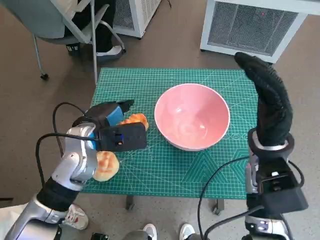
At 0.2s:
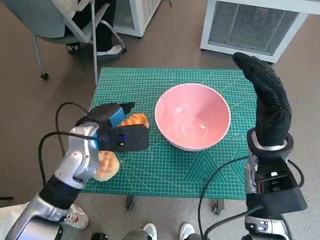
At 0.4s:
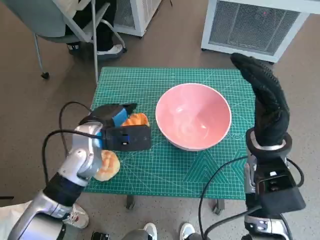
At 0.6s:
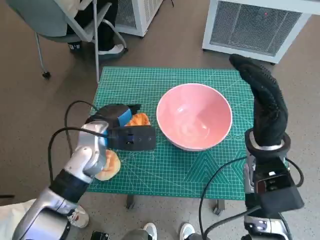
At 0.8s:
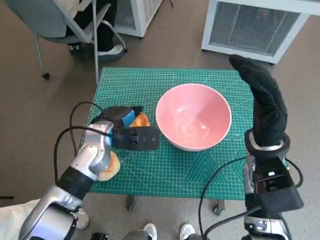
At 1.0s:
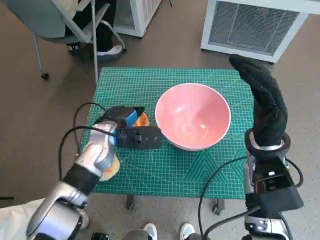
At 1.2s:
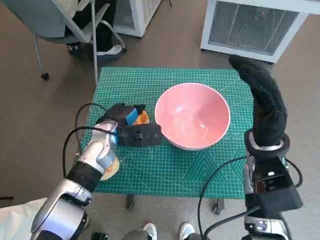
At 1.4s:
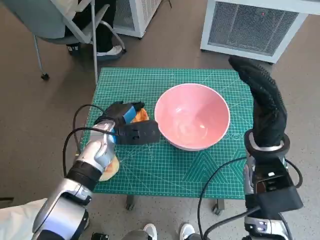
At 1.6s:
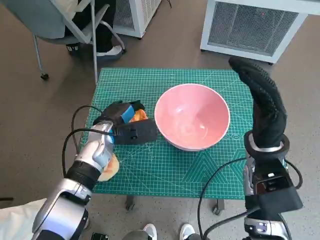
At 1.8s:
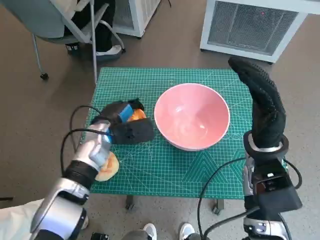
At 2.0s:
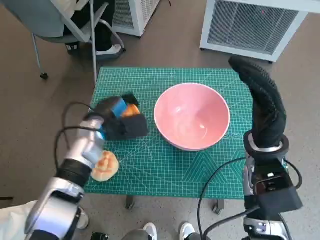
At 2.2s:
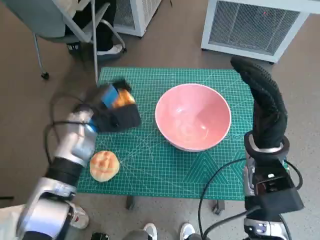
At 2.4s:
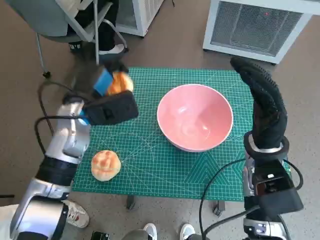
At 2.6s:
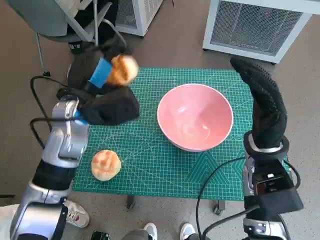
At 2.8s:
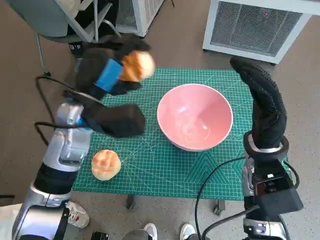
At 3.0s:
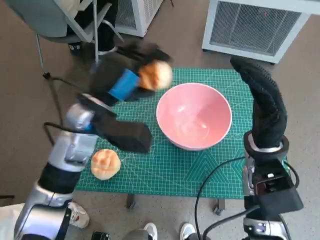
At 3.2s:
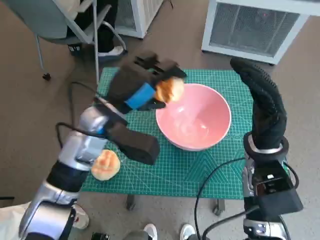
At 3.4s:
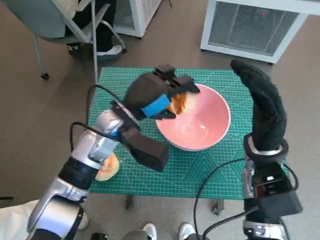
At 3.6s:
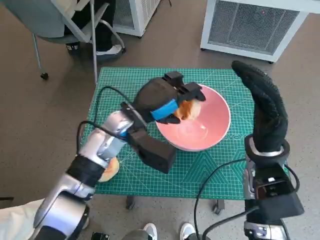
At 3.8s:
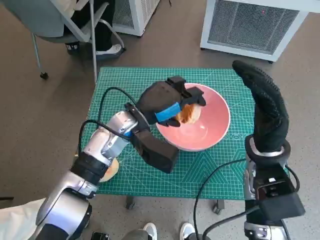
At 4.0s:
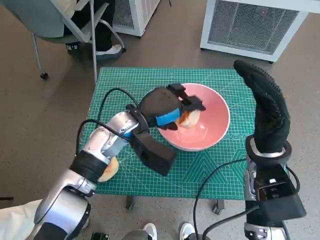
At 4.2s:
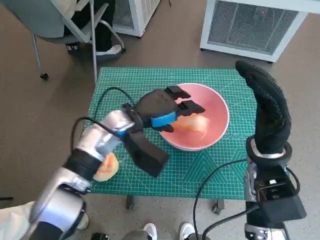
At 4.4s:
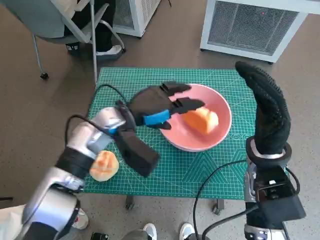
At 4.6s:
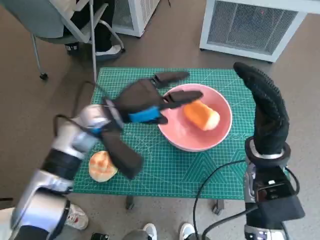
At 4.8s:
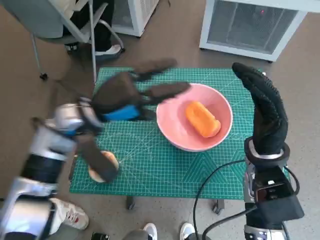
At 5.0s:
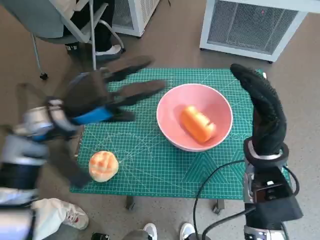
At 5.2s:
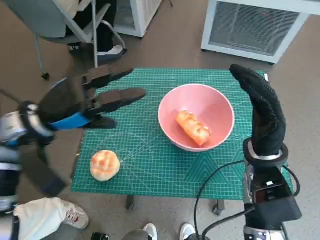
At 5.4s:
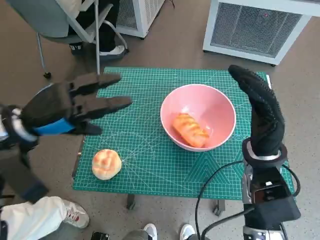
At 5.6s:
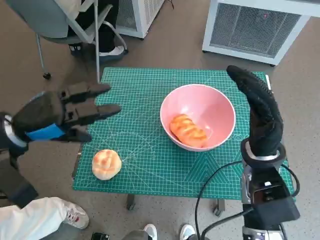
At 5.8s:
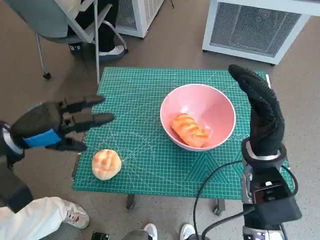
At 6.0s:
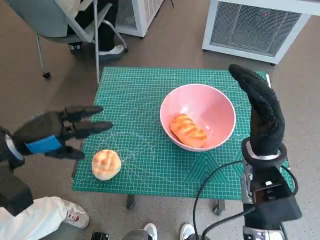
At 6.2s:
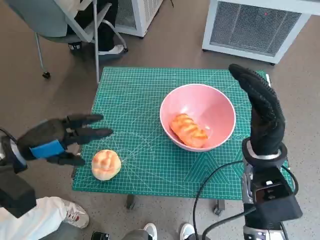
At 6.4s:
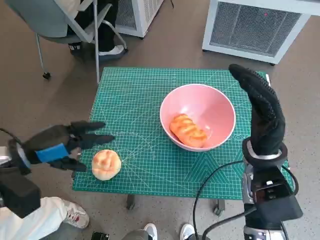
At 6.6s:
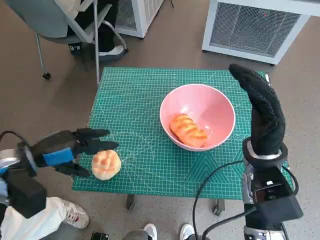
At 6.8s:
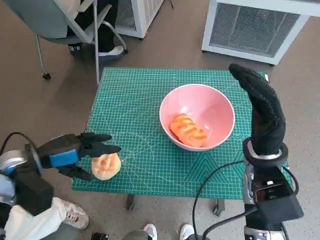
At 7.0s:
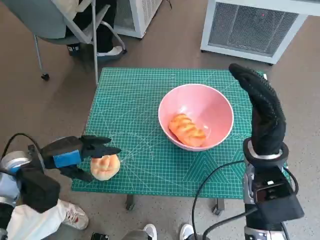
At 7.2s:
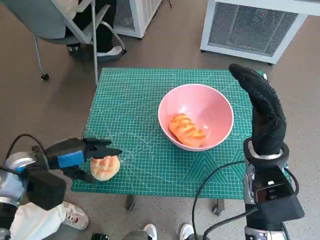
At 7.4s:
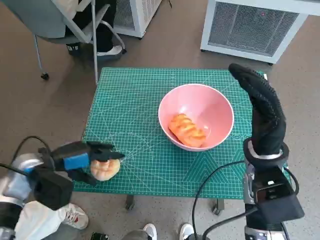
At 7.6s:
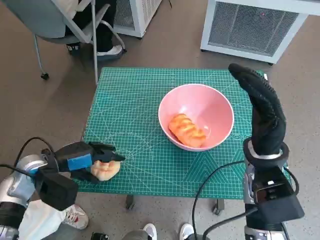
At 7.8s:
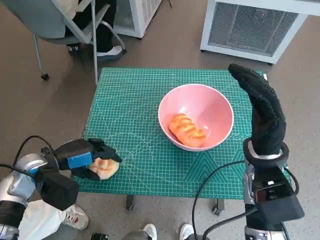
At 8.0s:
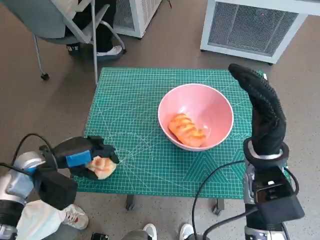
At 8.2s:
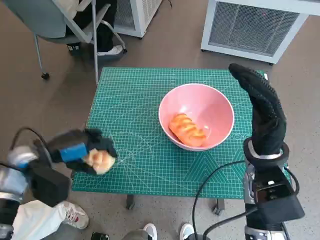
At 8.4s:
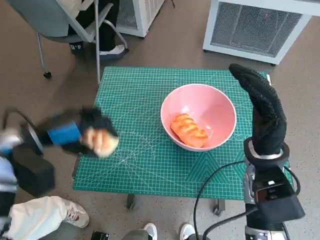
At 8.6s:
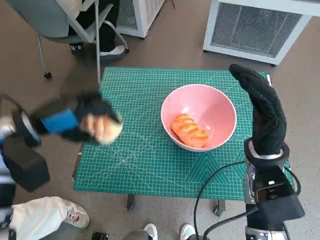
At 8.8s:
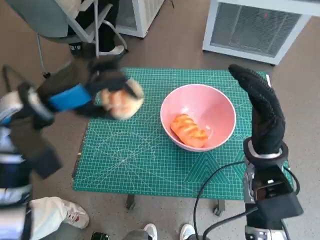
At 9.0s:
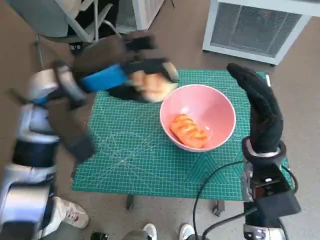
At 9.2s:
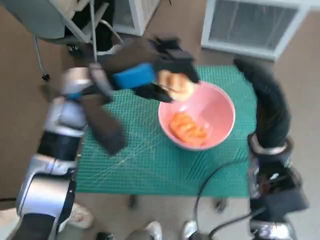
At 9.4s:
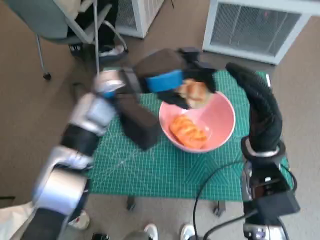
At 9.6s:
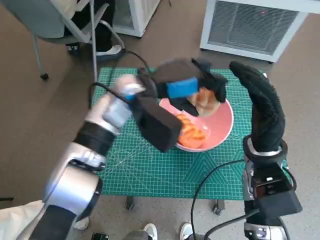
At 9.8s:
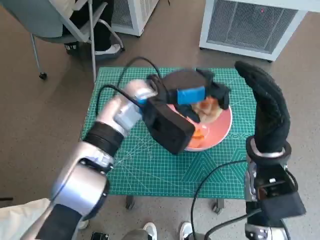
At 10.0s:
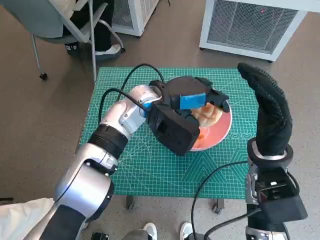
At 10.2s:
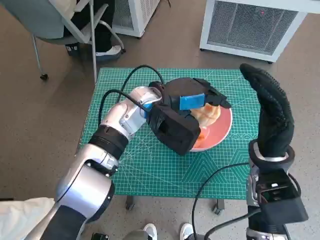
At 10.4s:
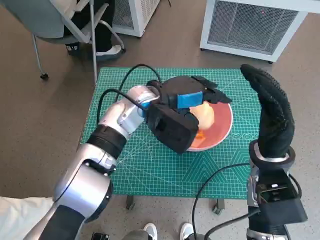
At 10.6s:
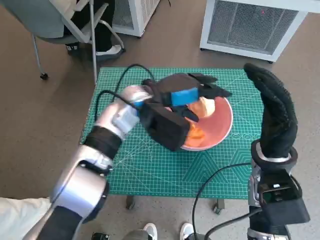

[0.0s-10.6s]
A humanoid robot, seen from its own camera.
Task of the whole recording: Push the bowl to the center of the table and put the bread into the bowl.
Step, 1.4s to 5.0s: Place the long bread in pink bowl with left hand.
Step, 5.2s to 7.6s: Grasp the round bread with left hand.
0.0s to 1.6s: The left hand is displaced downward by roughly 5 cm.
1.6s to 3.0s: The left hand moves upward, about 10 cm.
4.6s to 6.0s: The left hand moves to the left and backward, some 20 cm.
6.0s to 7.6s: The left hand heads downward, covering about 10 cm.
7.6s to 9.0s: The left hand shifts some 20 cm upward and to the right.
9.0s to 10.6s: The left hand travels to the right, downward and forward by roughly 15 cm.

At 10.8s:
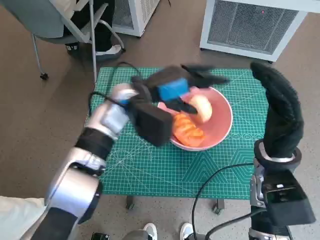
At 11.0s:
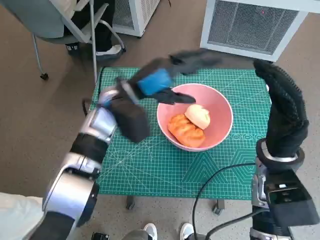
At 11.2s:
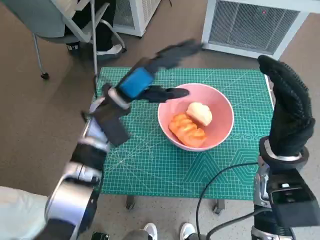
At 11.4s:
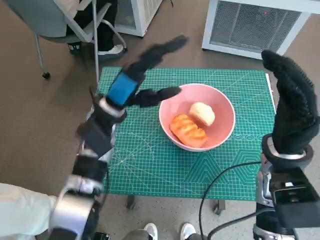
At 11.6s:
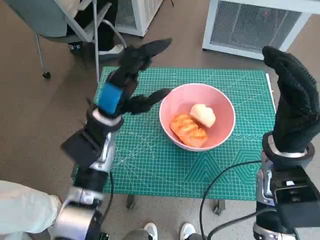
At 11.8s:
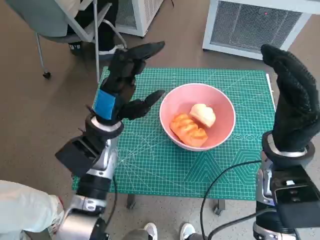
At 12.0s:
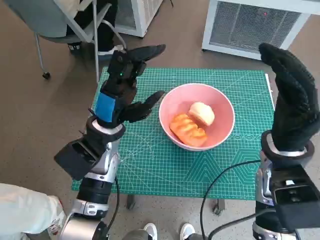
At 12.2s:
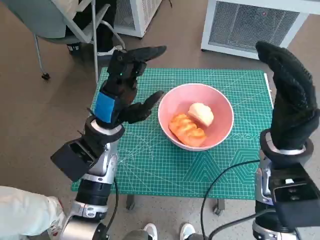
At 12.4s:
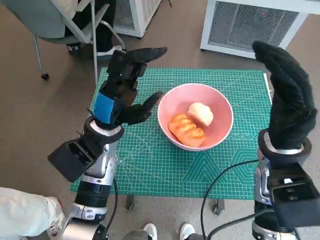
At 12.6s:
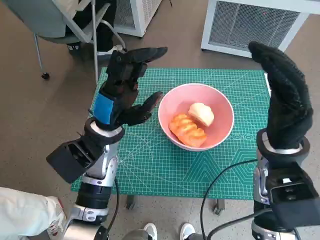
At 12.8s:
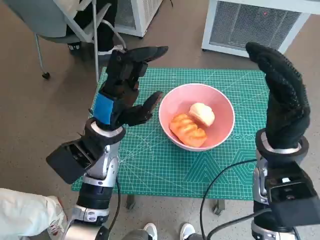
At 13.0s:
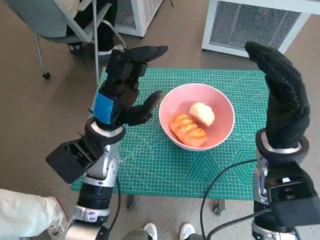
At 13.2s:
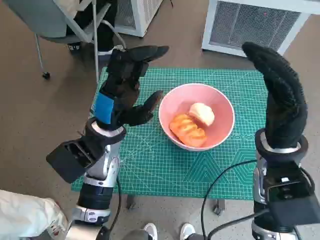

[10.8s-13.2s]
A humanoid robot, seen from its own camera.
Task of the whole recording: Push the bowl to the center of the table and put the bread into the bowl.
10.8s to 12.0s: The left hand moves backward and to the left, roughly 10 cm.
12.0s to 13.2s: Neither hand changes place.

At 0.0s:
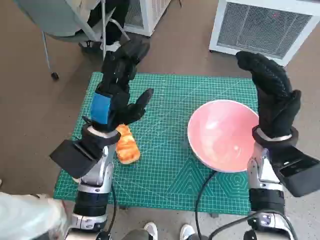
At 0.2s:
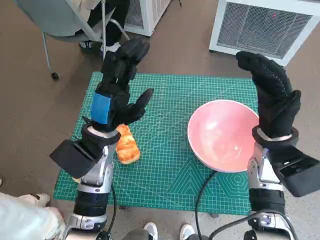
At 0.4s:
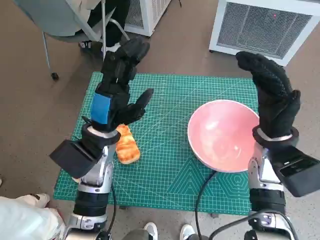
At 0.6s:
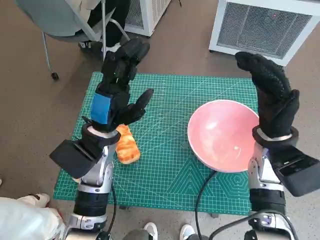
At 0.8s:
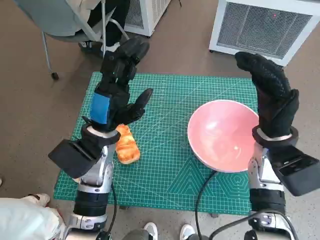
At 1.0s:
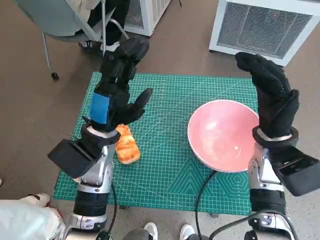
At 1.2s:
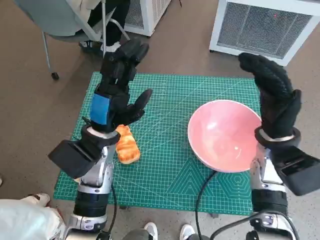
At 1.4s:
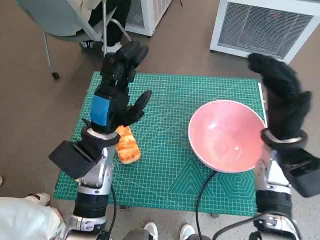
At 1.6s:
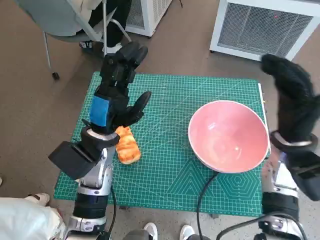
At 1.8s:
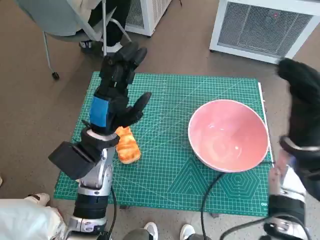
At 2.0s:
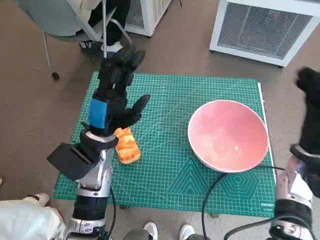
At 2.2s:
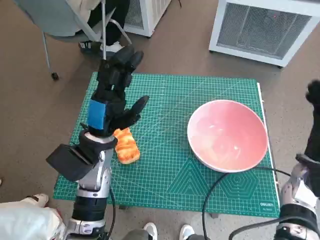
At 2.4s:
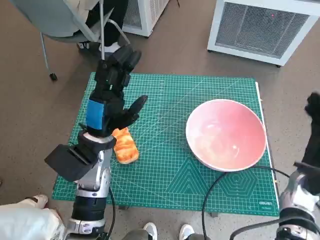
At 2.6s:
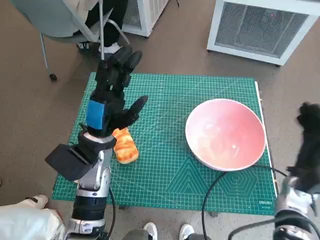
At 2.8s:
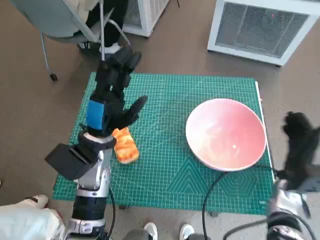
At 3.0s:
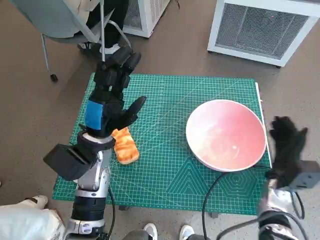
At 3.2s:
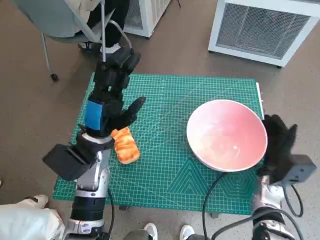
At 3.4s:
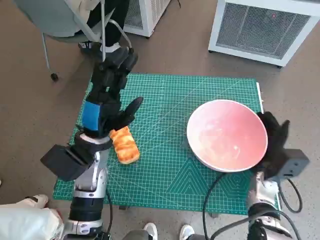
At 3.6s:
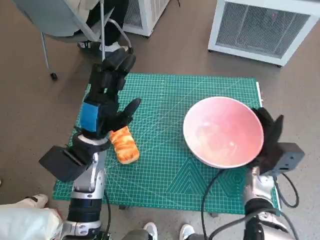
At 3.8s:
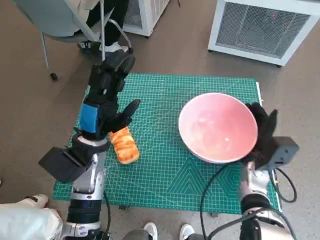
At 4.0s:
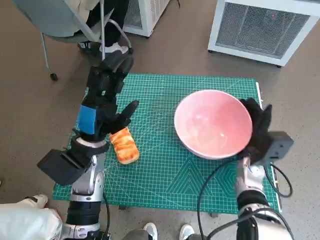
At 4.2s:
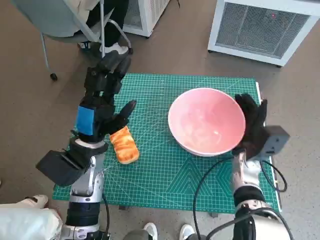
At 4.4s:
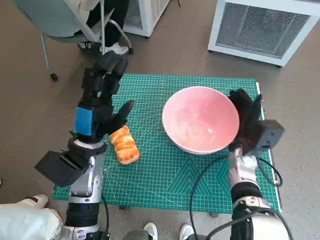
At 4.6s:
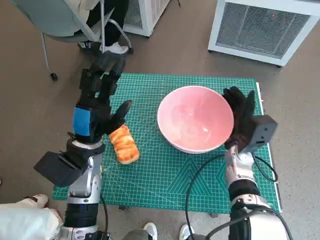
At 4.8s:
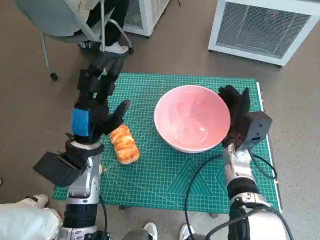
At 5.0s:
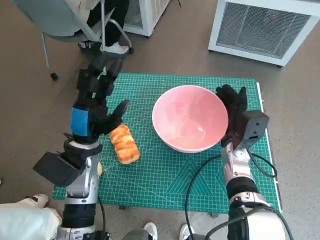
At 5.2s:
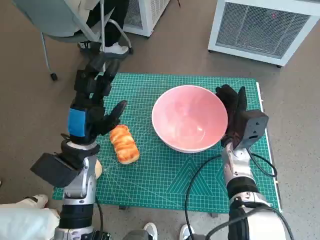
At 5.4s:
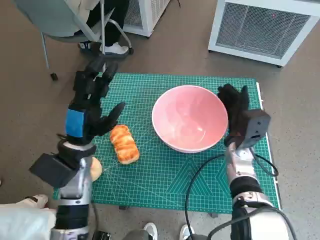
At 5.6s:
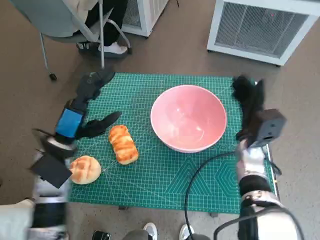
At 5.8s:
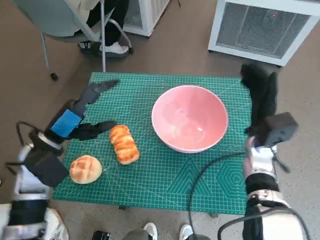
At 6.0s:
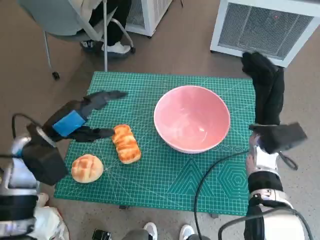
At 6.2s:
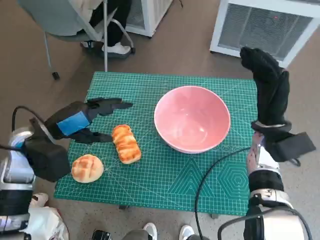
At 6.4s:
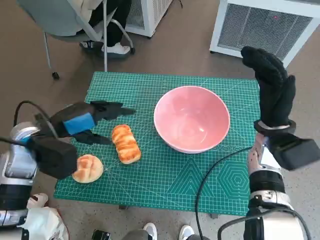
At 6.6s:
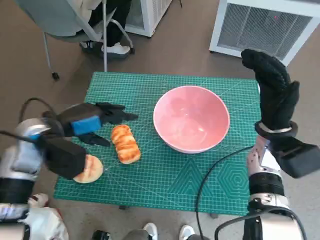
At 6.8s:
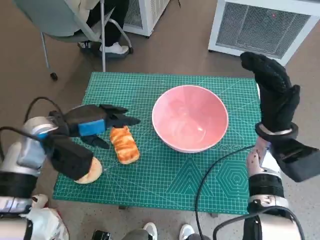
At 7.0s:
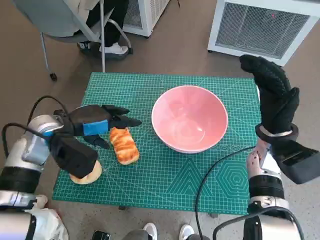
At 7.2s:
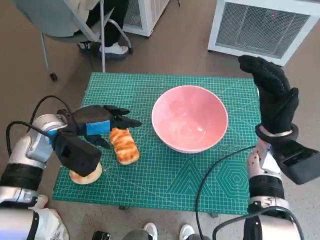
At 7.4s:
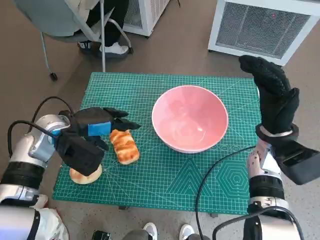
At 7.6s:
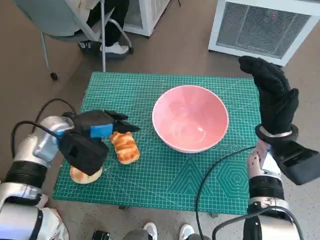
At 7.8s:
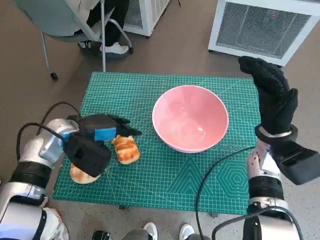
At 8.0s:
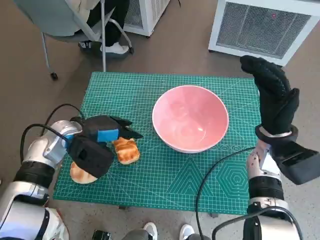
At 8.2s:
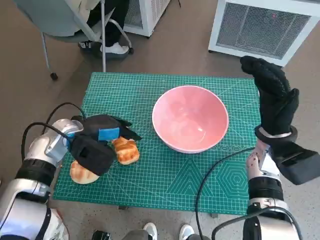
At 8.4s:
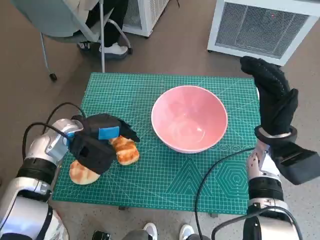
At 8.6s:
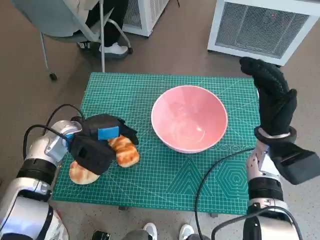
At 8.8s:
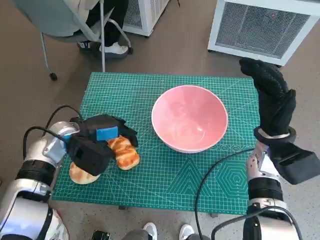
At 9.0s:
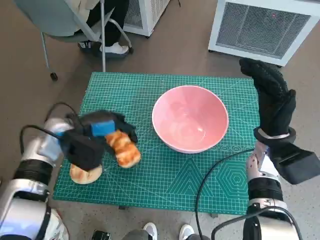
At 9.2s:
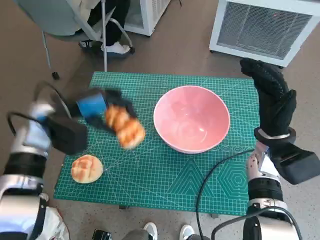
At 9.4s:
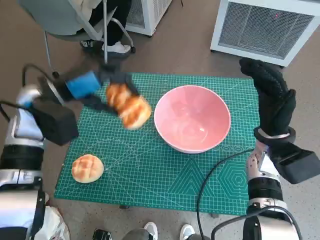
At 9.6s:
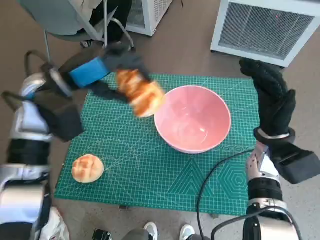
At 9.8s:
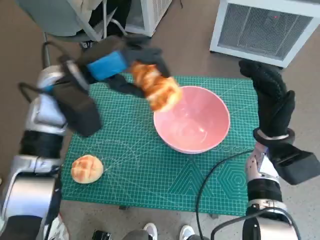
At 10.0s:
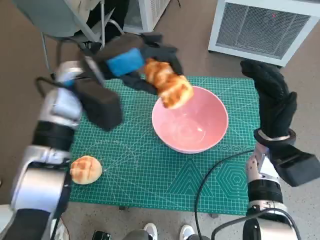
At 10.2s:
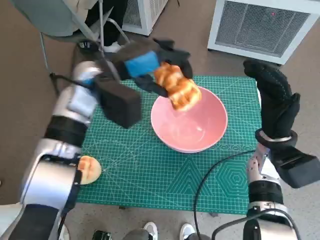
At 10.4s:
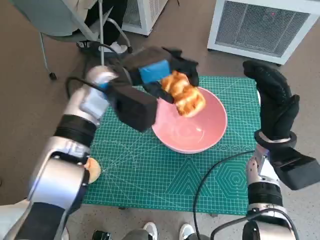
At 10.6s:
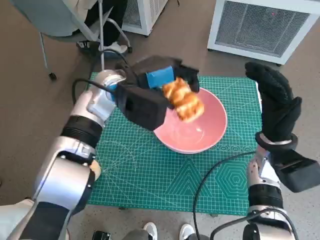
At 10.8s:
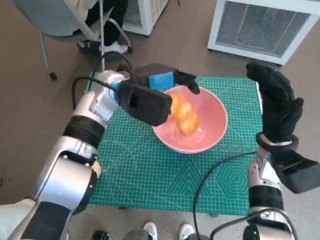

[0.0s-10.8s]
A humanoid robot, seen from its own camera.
Task of the whole recording: Push the bowl to the center of the table and put the bread into the bowl.
Step, 0.0s to 5.8s: Move the pink bowl to the center of table with right hand.
Step, 6.2s to 8.6s: Grasp the long bread with left hand.
1.6s to 3.0s: The right hand is displaced downward by approximately 15 cm.
3.0s to 4.6s: The right hand shifts roughly 10 cm to the left and forward.
4.6s to 6.2s: The right hand heads upward, covering approximately 5 cm. Meanwhile the left hand is displaced to the left by some 10 cm.
6.2s to 7.8s: The left hand ends up roughly 5 cm from where it was.
9.2s to 10.8s: The left hand moves to the right, approximately 15 cm.
